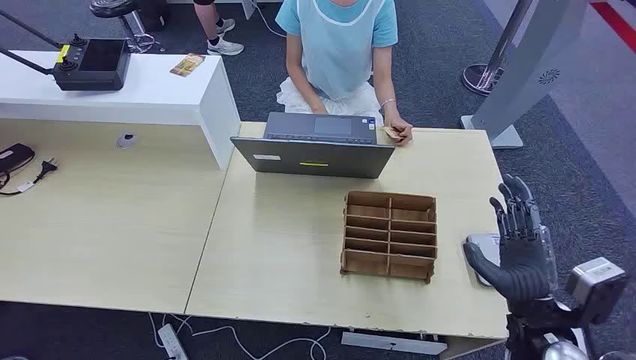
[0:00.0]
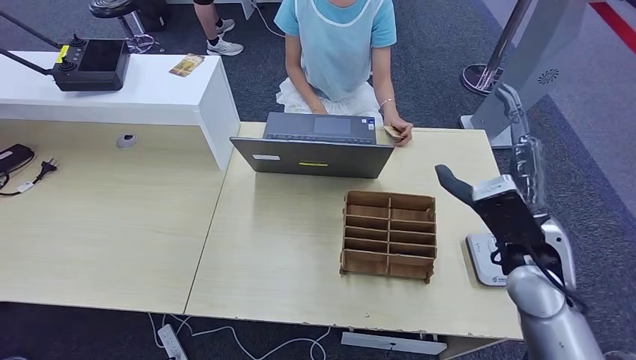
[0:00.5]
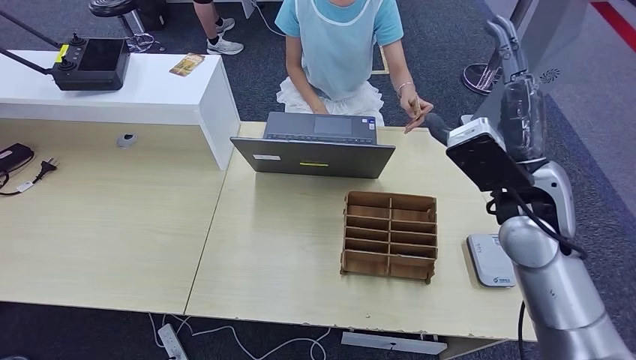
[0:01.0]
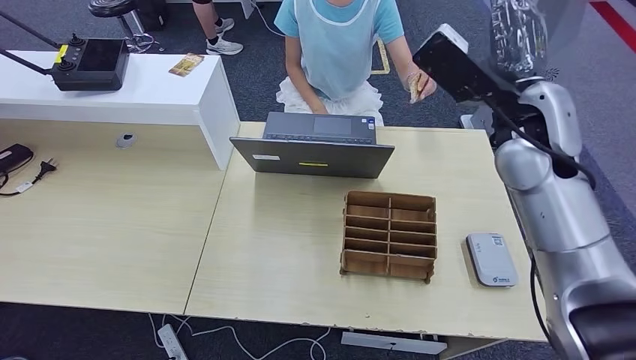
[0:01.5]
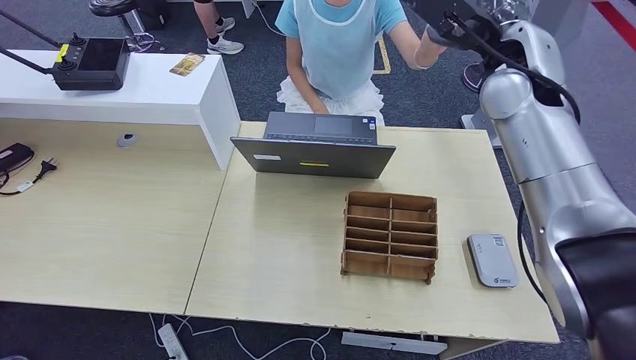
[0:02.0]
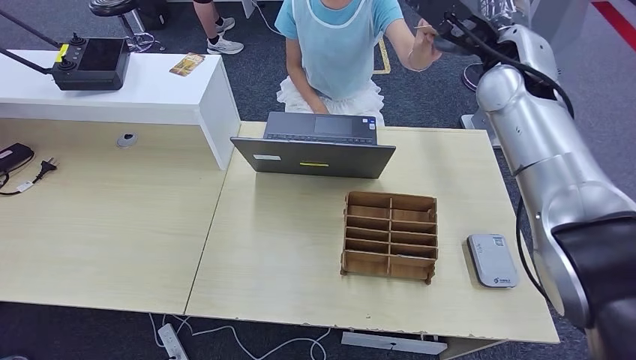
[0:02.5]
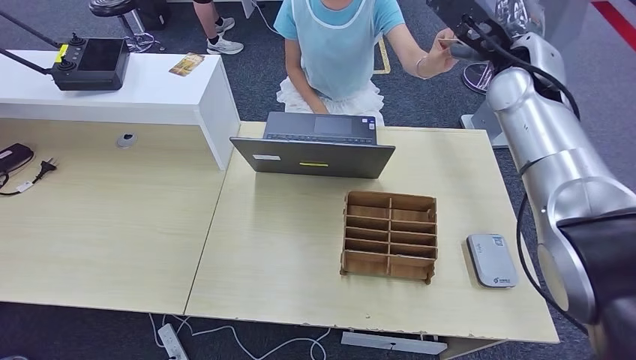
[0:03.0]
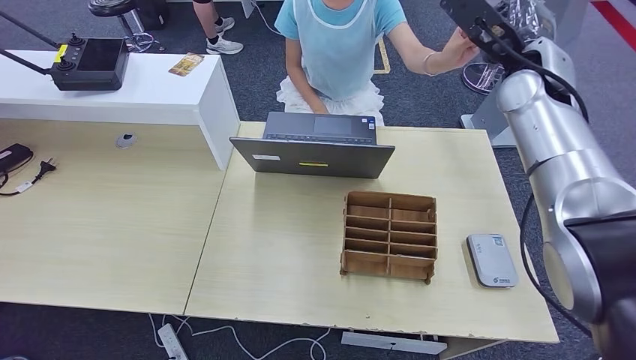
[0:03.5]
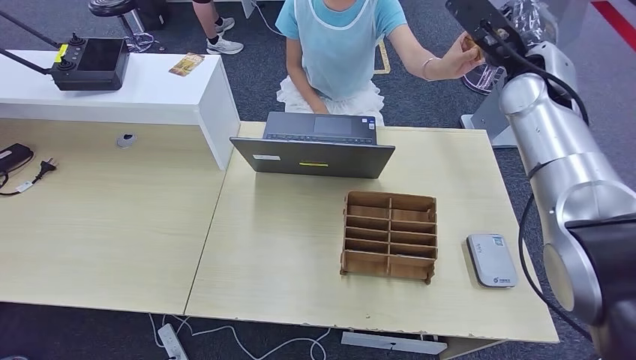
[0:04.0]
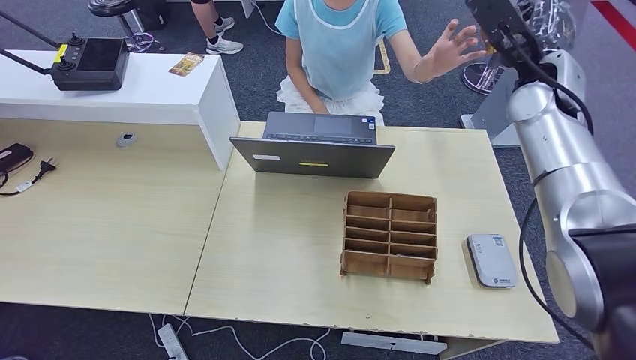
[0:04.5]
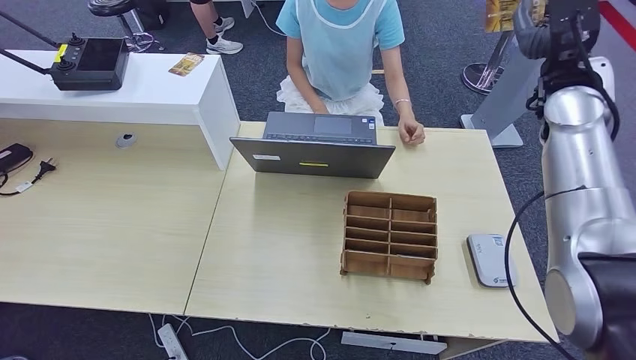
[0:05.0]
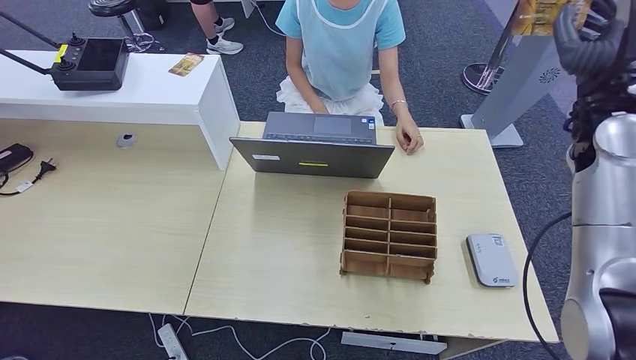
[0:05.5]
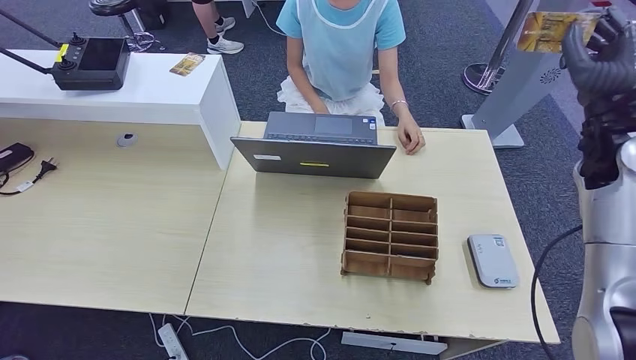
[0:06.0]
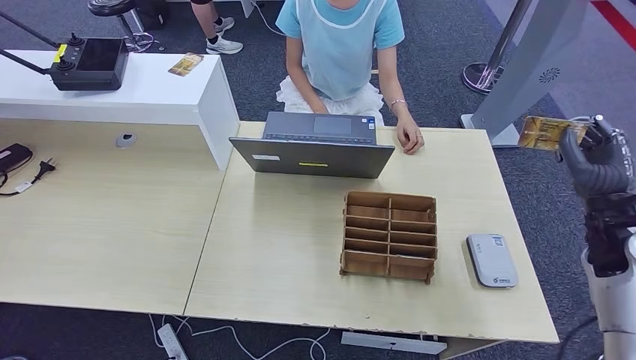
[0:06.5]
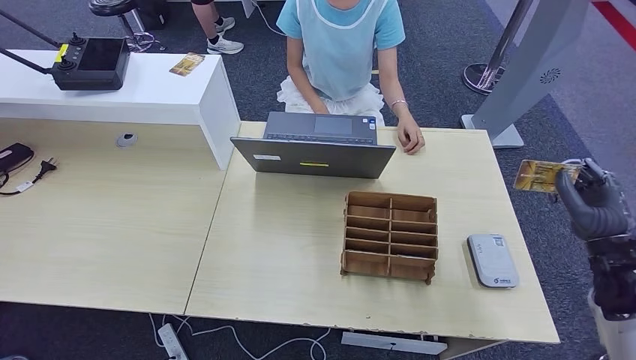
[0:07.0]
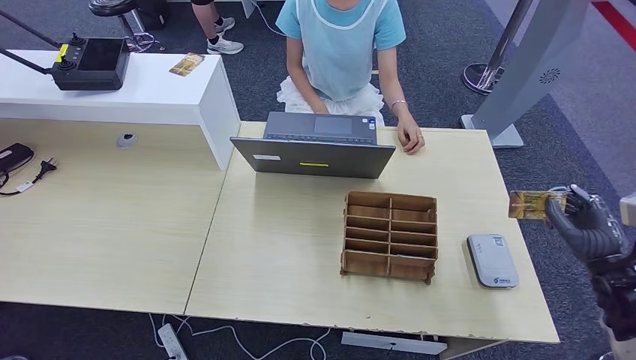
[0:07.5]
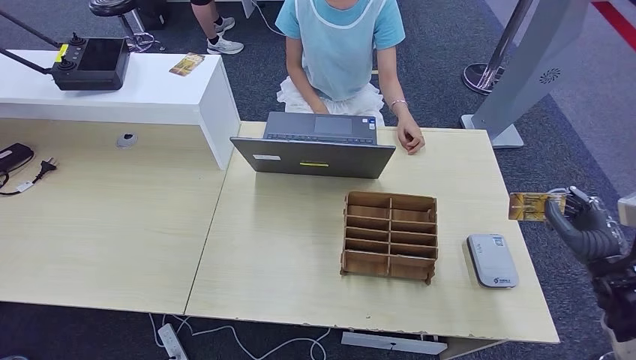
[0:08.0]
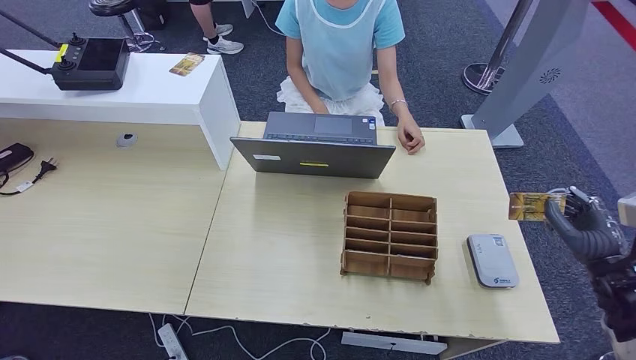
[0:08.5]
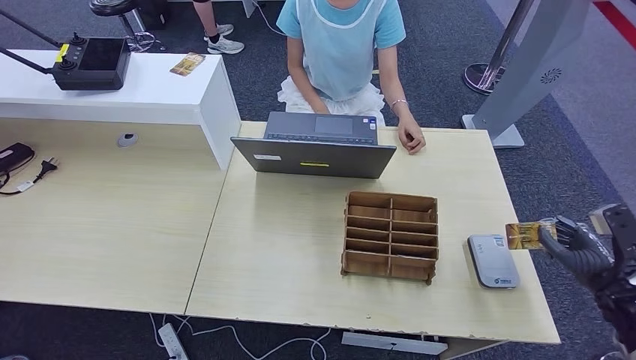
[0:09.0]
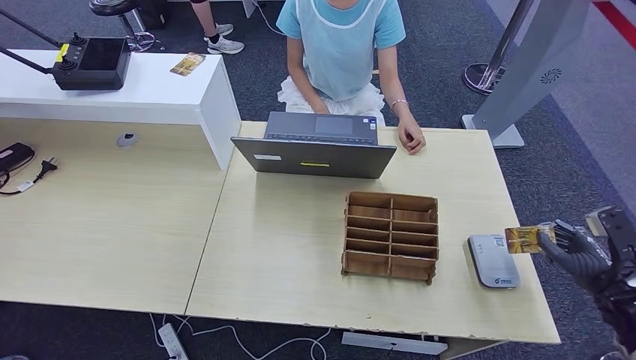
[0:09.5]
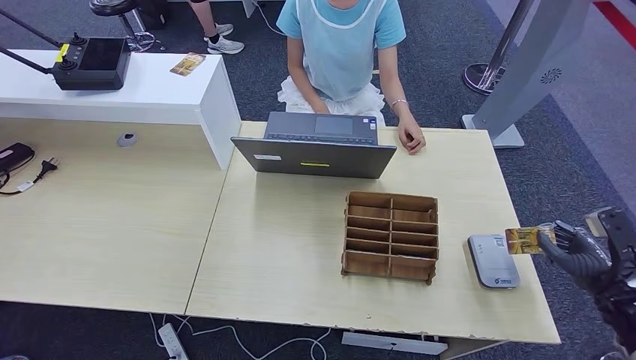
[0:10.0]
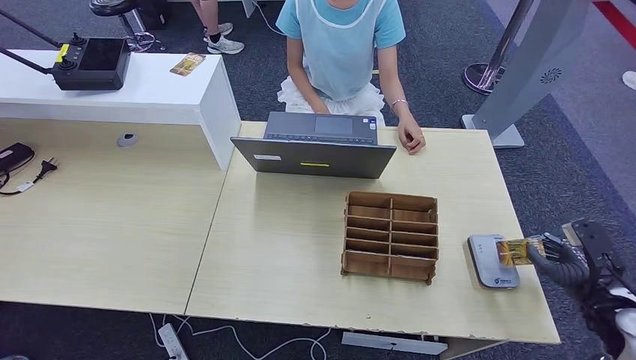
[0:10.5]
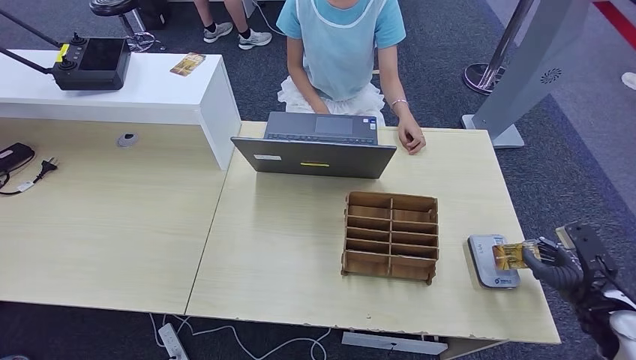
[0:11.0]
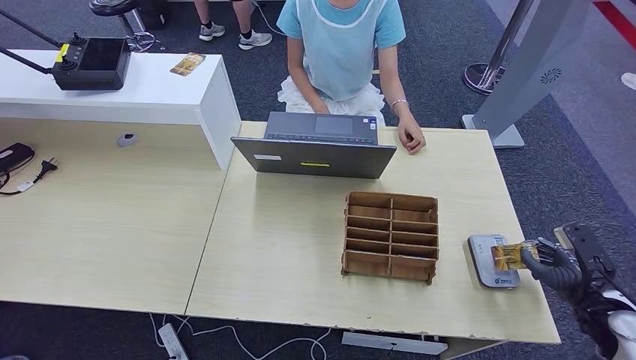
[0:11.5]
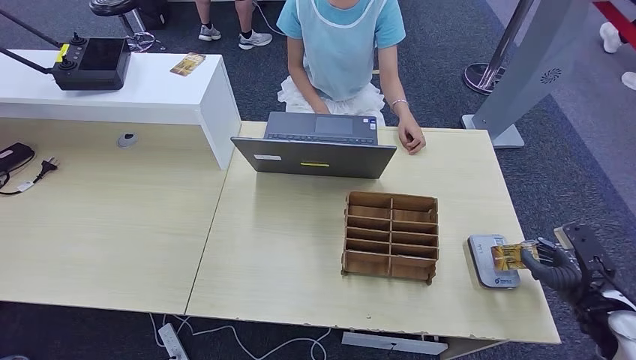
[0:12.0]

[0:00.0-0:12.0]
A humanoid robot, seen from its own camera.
Step, 0.0 to 5.5 s: Take the ID card from the person's hand.
2.0 to 4.0 s: The right hand is displaced to the right by roughly 5 cm.
4.0 to 6.0 s: The right hand travels to the right and backward by some 15 cm.
6.0 to 8.0 s: The right hand travels downward and backward by some 25 cm.
8.0 to 10.0 s: The right hand changes place by roughly 5 cm.
10.0 to 12.0 s: The hands stay close to where they were, moving slightly.

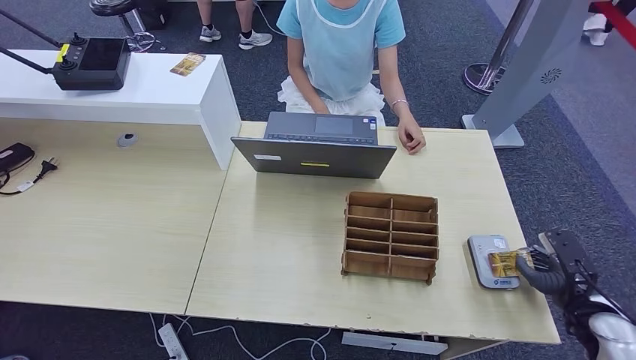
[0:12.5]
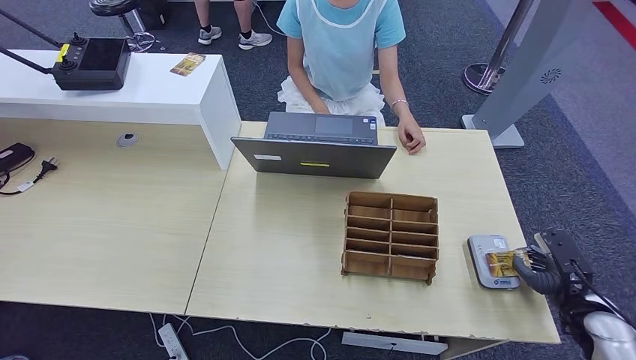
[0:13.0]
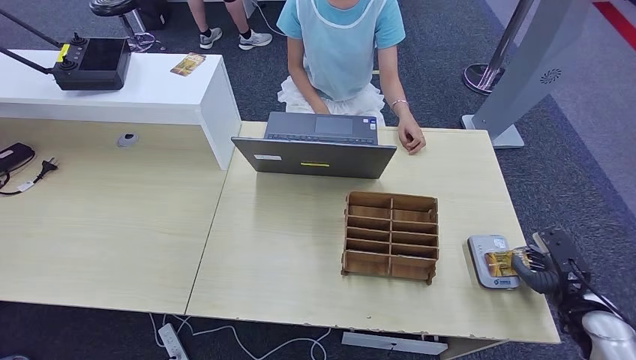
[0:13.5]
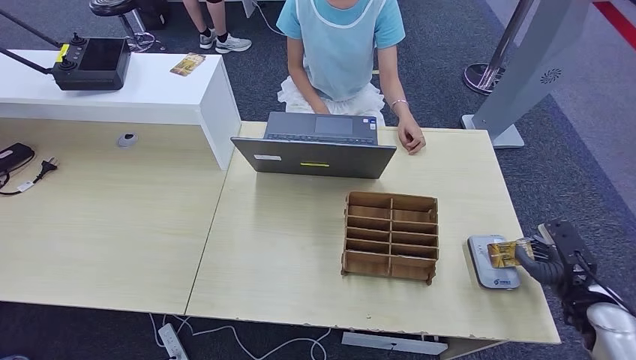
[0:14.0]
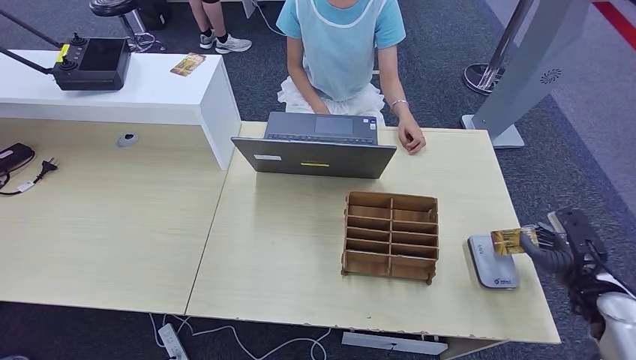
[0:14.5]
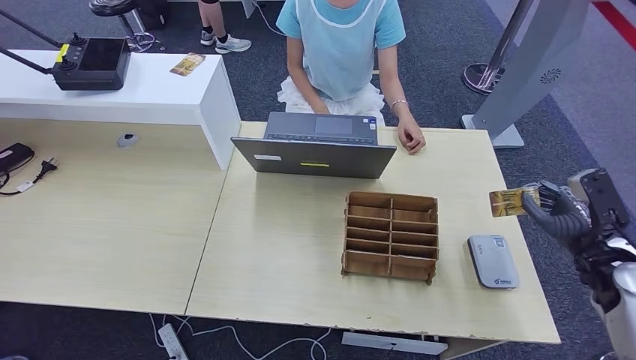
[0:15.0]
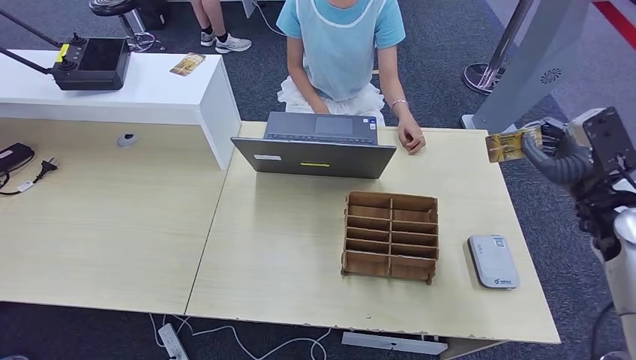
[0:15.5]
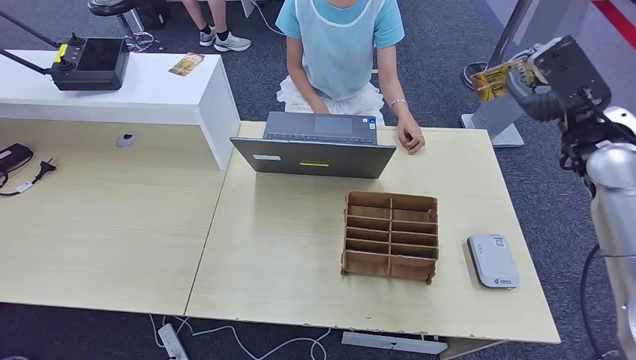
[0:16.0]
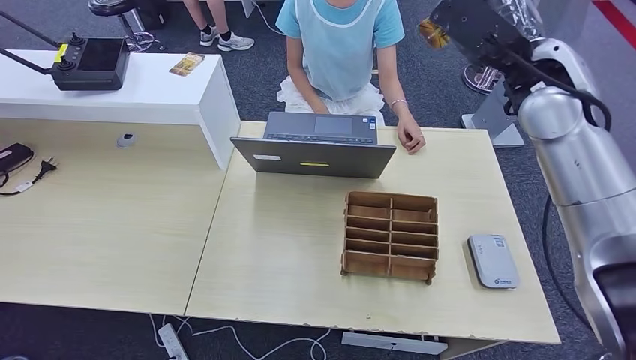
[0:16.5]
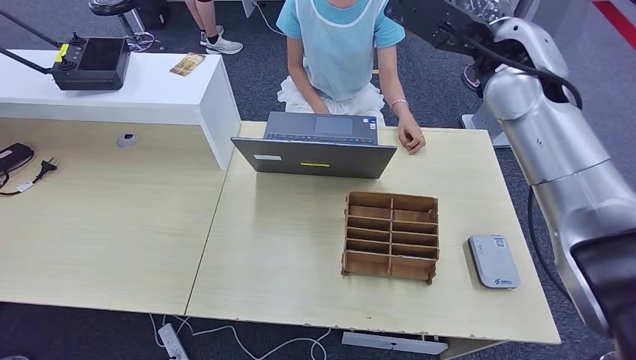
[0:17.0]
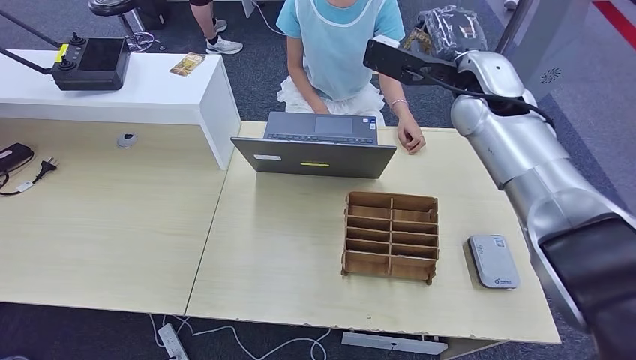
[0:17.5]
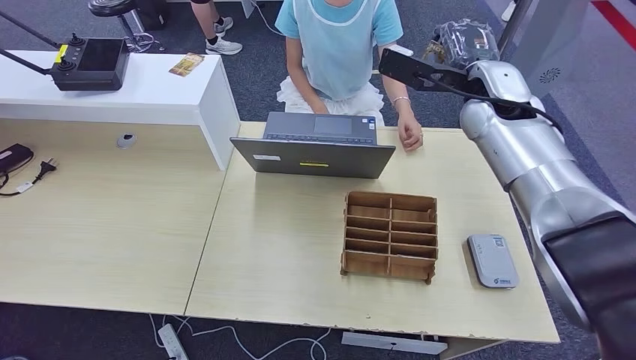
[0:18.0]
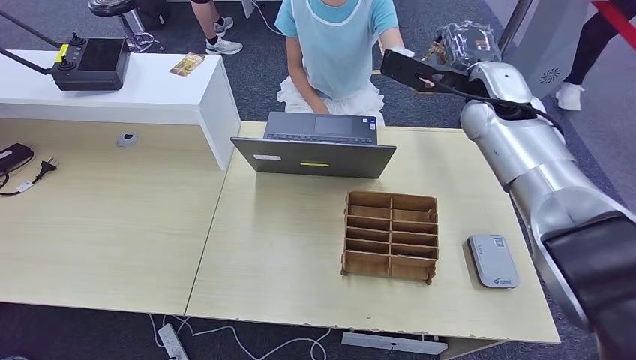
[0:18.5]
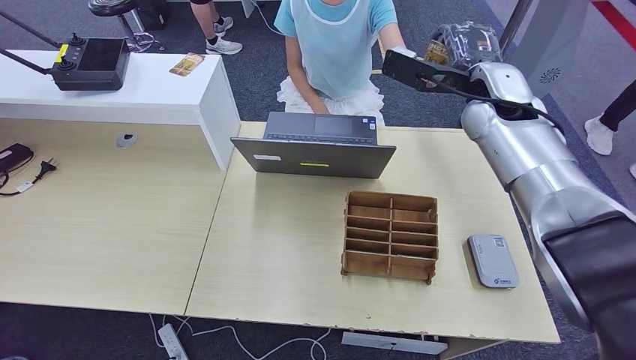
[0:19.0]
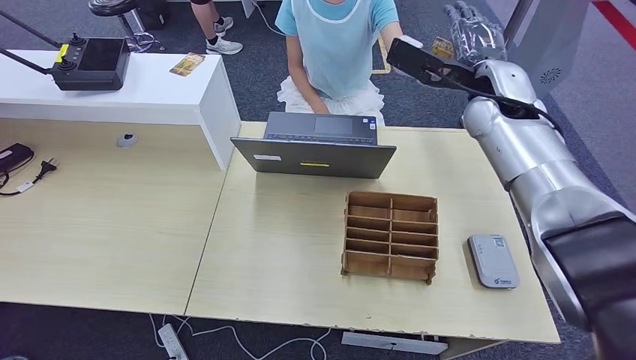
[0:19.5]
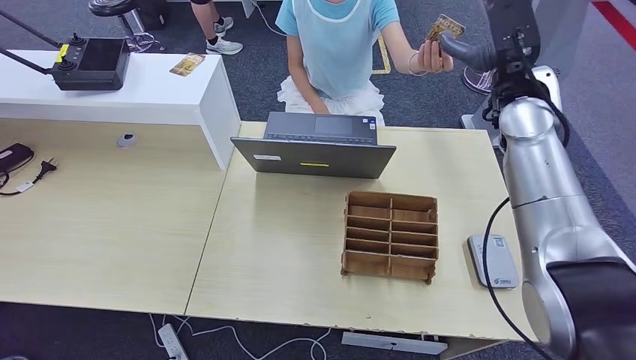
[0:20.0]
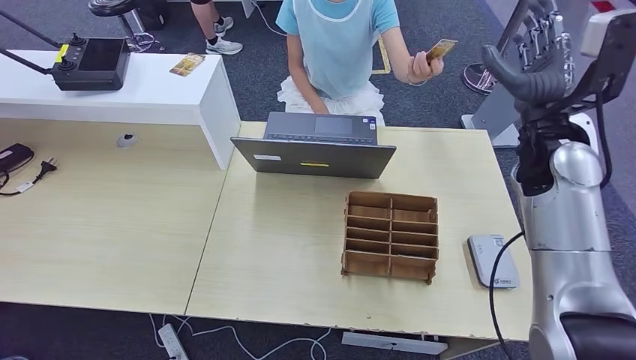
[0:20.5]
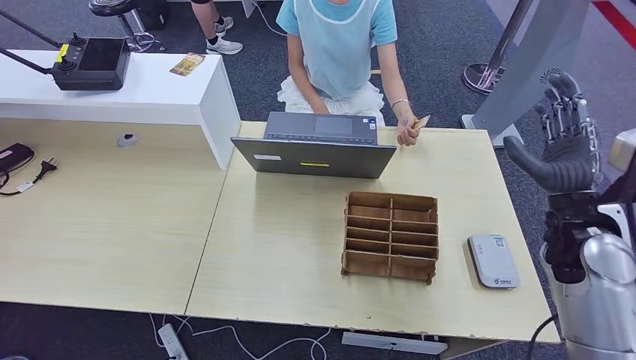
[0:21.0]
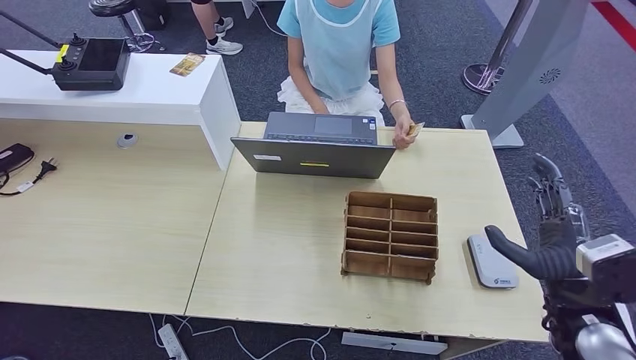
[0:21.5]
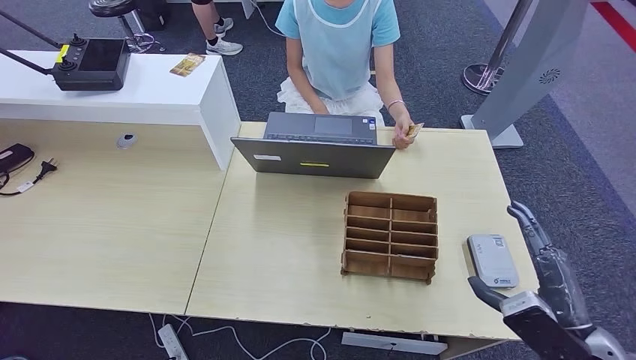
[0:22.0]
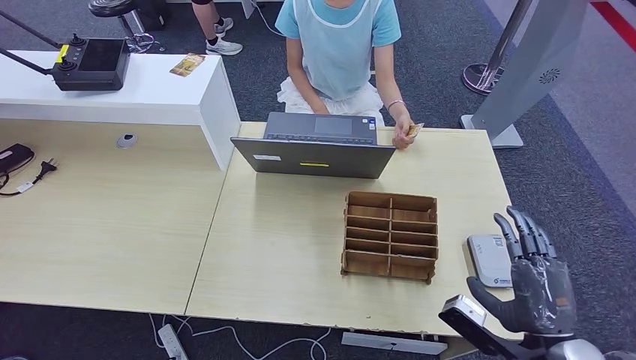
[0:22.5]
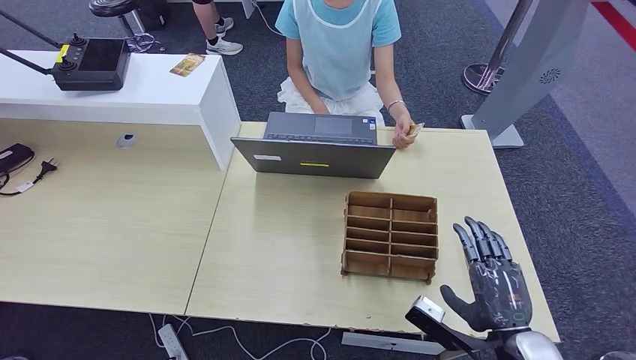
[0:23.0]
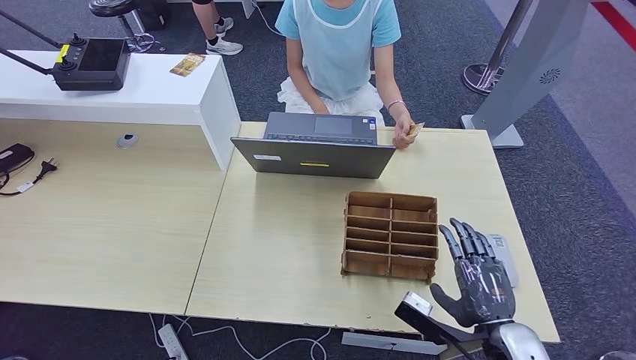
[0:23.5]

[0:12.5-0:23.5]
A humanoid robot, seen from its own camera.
Step, 12.5 to 14.5 s: Place the ID card on the card reader.
Step, 15.5 to 21.0 s: Hand the ID card to the person.
12.5 to 14.5 s: There are only small adjustments of the hands.
14.5 to 16.0 s: The right hand goes some 30 cm upward, forward and to the left.
16.0 to 18.0 s: The right hand heads to the left and forward, covering about 15 cm.
20.0 to 21.5 s: The right hand shifts roughly 30 cm backward and downward.
21.5 to 23.5 s: The right hand shifts about 10 cm to the left and downward.
